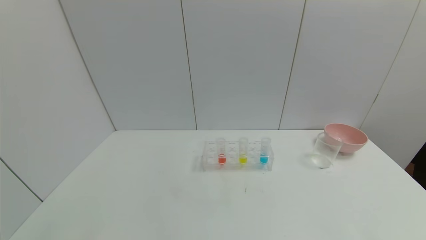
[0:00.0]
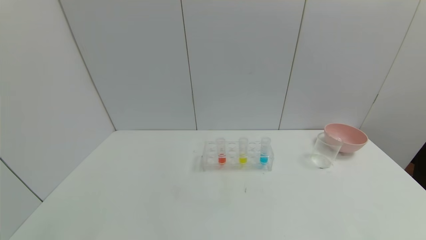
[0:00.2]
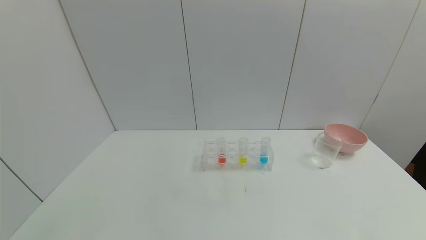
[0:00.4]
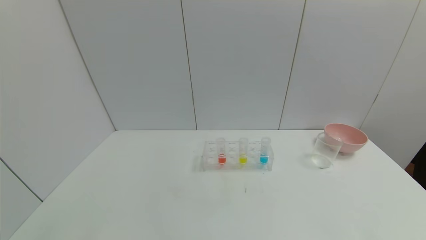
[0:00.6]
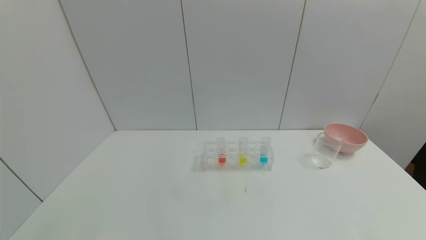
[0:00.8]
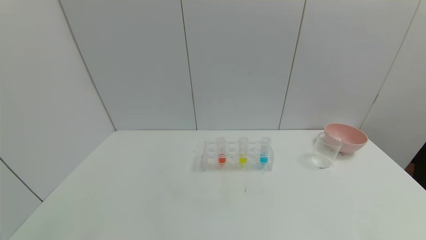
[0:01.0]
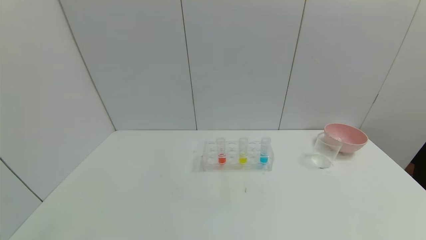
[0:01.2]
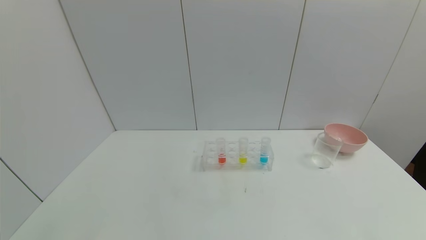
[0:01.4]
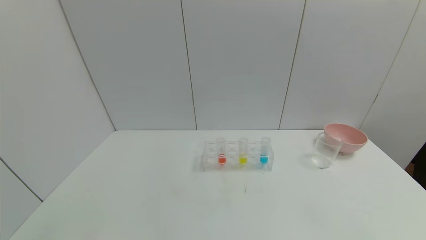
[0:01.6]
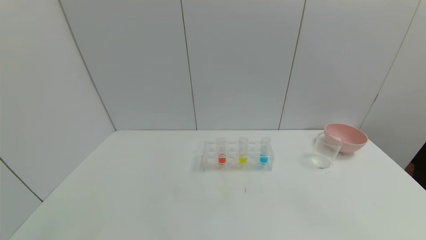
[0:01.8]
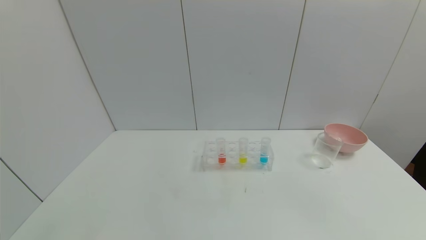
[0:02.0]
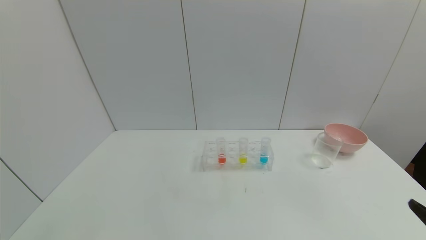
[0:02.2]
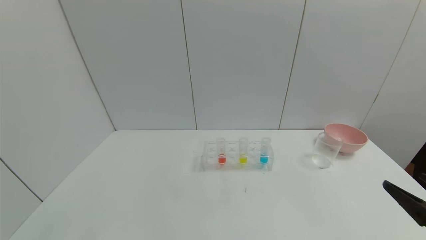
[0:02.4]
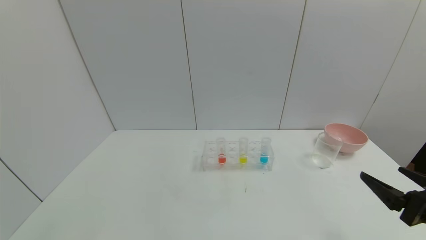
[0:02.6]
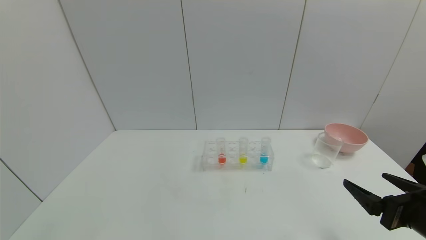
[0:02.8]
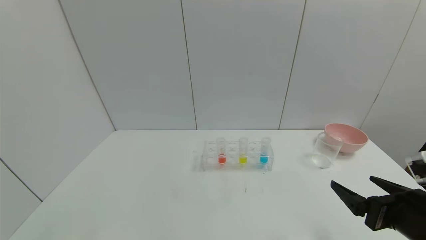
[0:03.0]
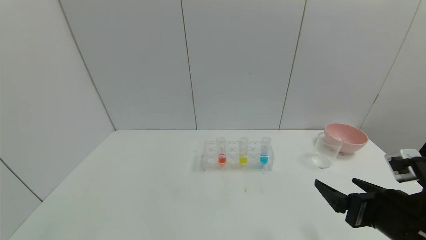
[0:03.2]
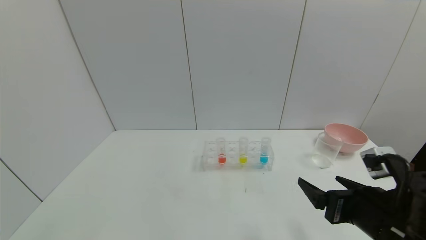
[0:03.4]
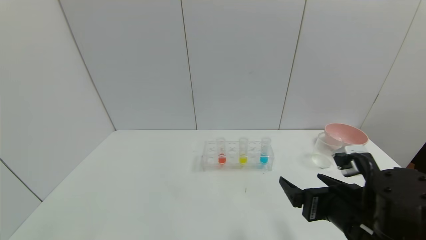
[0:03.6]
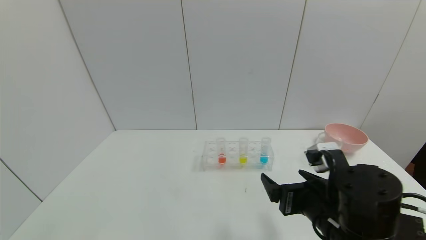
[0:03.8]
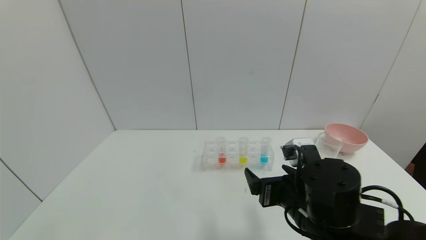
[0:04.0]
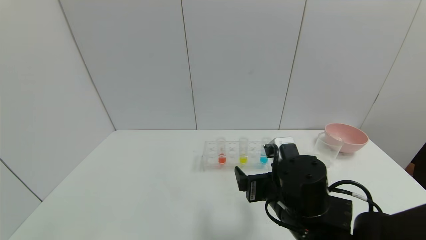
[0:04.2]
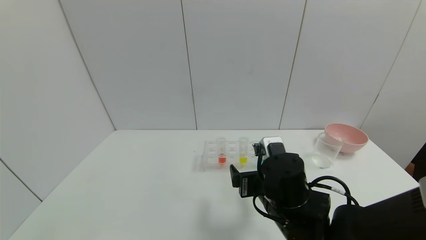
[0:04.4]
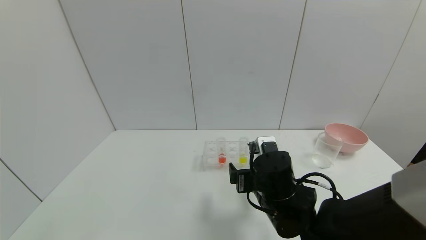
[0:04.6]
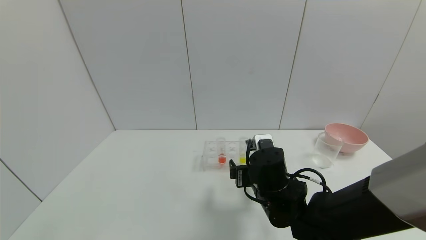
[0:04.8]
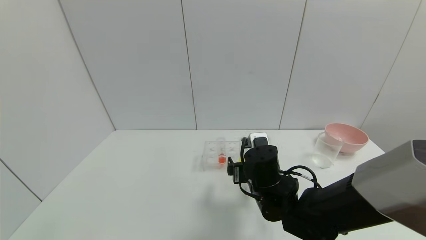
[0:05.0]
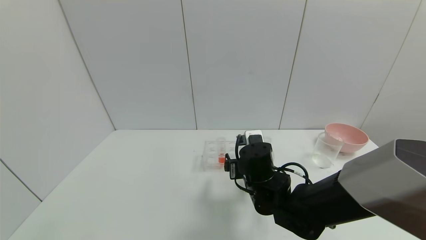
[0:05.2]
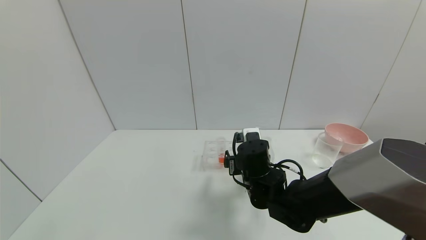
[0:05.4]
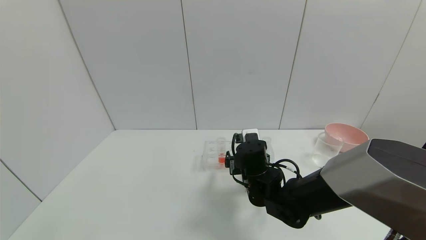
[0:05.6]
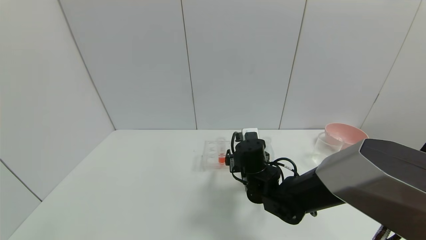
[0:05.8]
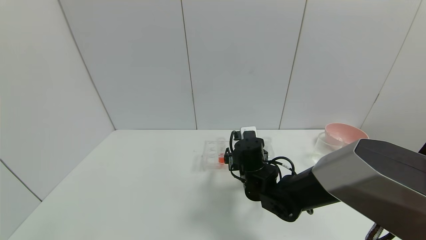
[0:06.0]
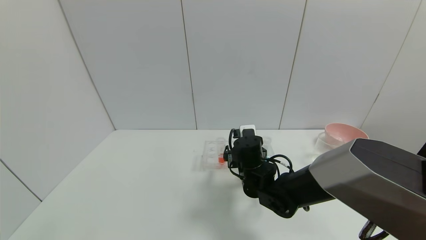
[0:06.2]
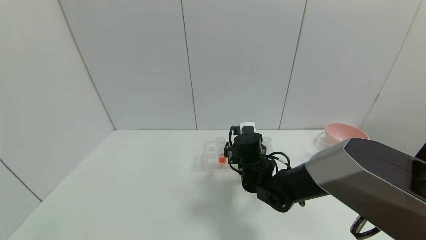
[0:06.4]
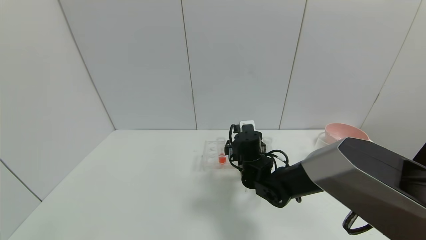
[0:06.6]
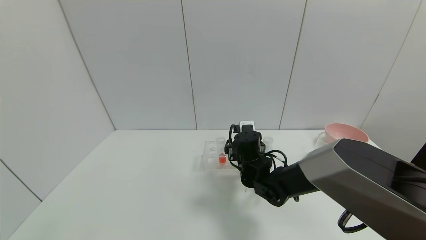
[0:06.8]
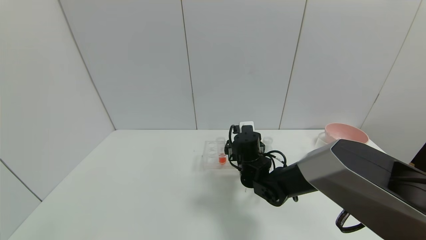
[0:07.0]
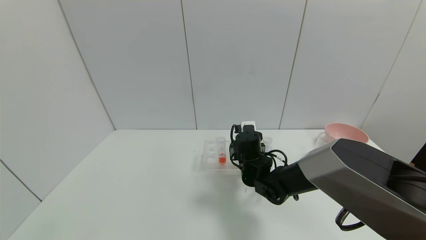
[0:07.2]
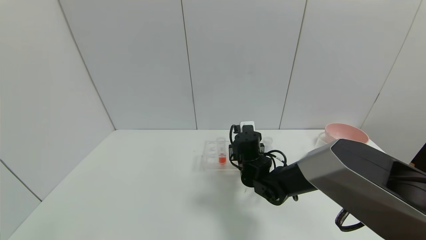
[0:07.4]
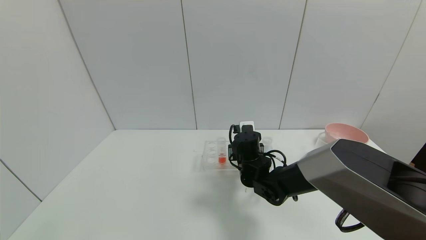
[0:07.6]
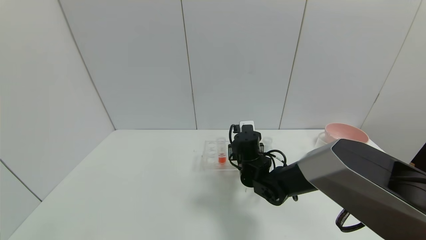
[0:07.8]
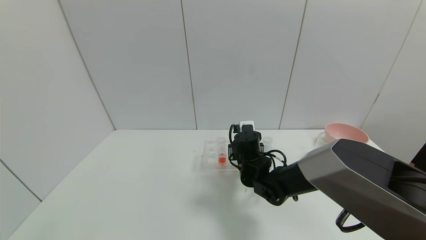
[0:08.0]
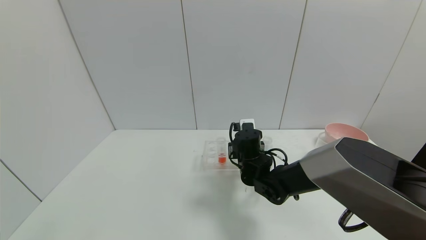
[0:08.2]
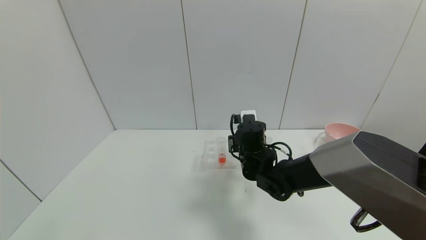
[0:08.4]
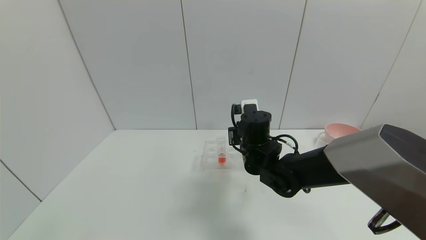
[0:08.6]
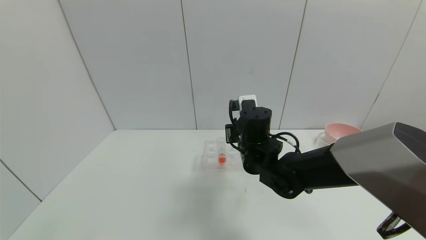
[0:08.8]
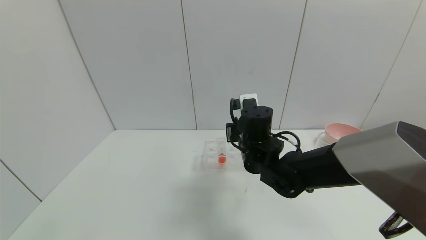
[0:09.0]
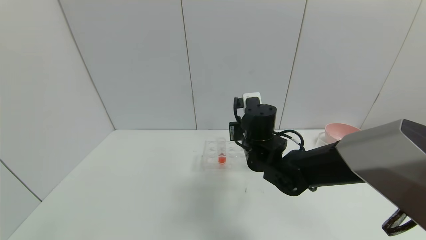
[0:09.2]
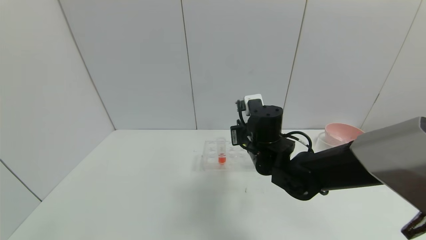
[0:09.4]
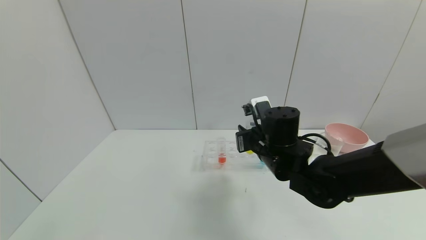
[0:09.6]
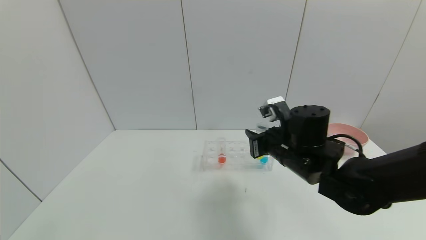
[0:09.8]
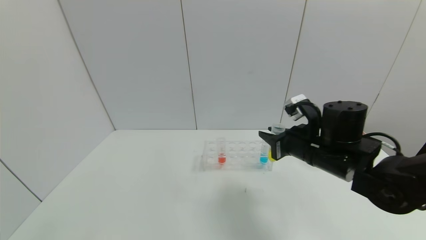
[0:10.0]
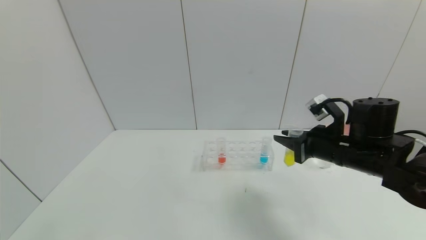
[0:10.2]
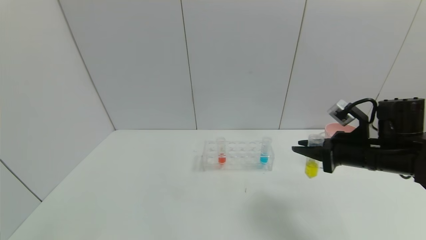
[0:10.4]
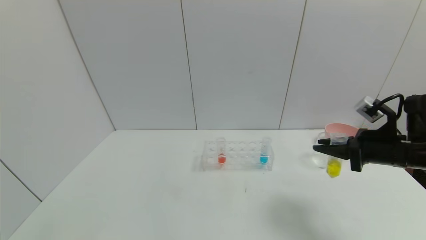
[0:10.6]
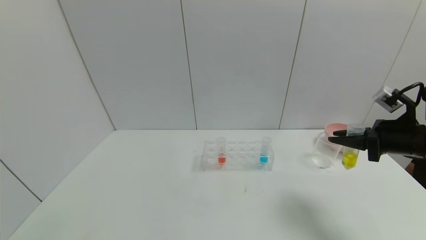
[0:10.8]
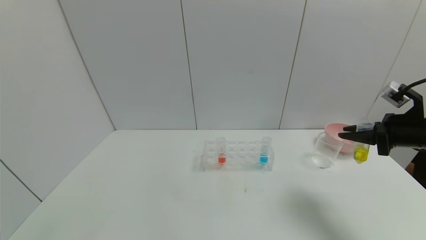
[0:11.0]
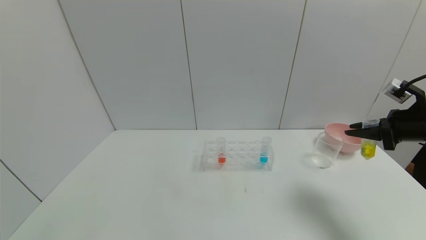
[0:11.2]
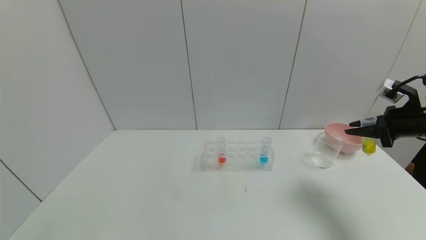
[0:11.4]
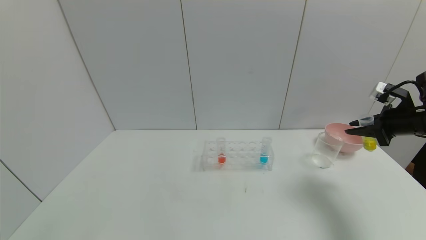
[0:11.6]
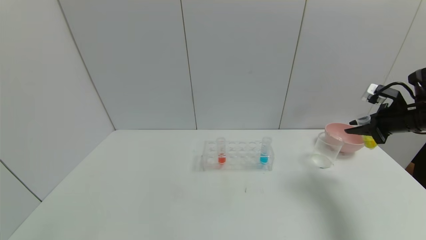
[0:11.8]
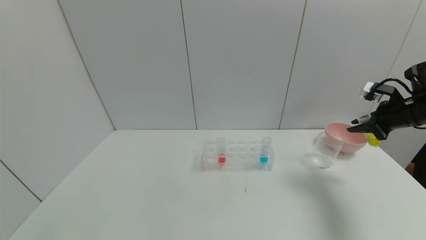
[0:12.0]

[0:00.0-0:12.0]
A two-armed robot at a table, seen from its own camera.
Task of the whole recording: pick up the test tube with yellow pigment and the test tube with blue pigment by grippers and pour them into the beaker.
Step, 0:00.0 to 0:07.6: Grasp the yellow reagent with the right gripper.
0:01.6 to 0:03.0: The right gripper moves forward and to the left, roughly 20 cm.
0:03.0 to 0:04.4: The right gripper travels to the left and forward by roughly 20 cm.
0:04.4 to 0:06.0: The right gripper shifts some 10 cm forward.
0:06.0 to 0:07.6: The right gripper closes.
0:07.6 to 0:09.0: The right gripper travels upward by roughly 10 cm.
0:09.0 to 0:10.4: The right gripper is displaced to the right by some 20 cm.
0:10.4 to 0:12.0: The right gripper travels to the right and forward by some 15 cm.

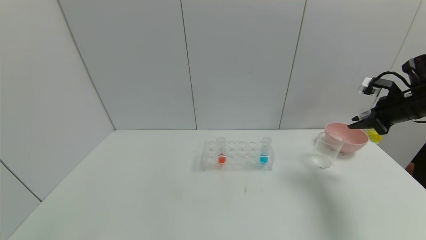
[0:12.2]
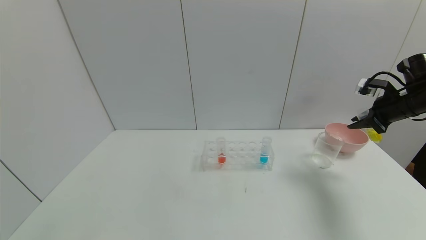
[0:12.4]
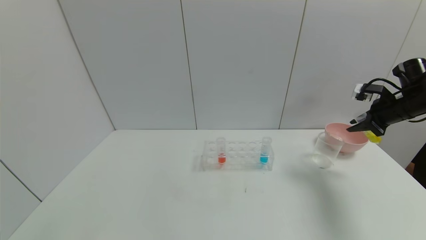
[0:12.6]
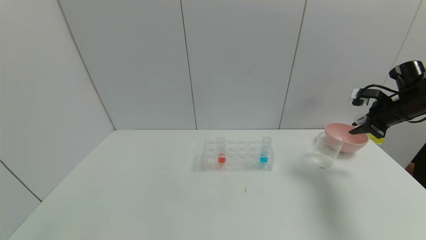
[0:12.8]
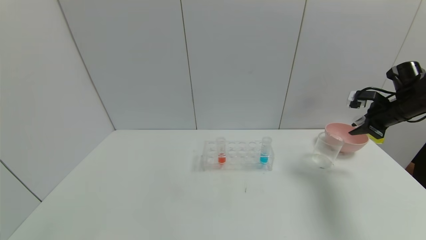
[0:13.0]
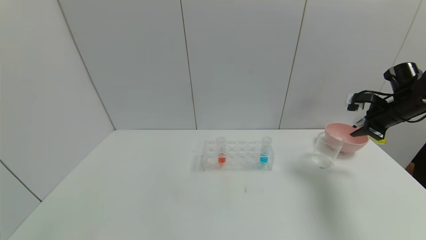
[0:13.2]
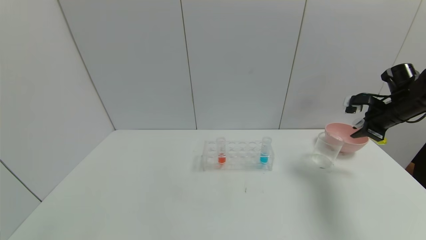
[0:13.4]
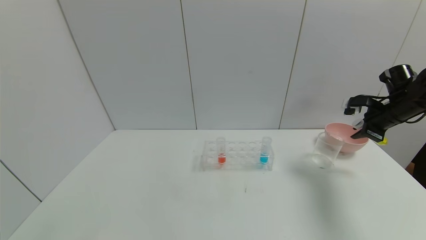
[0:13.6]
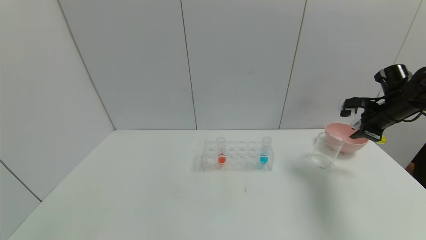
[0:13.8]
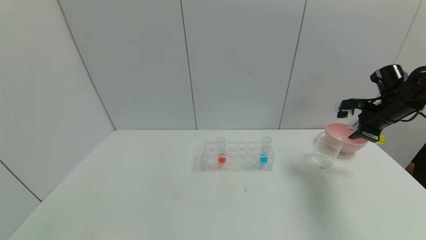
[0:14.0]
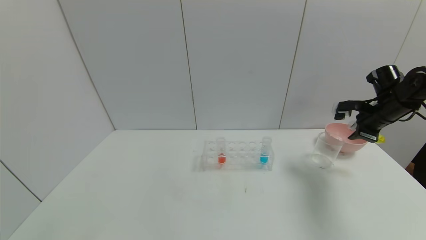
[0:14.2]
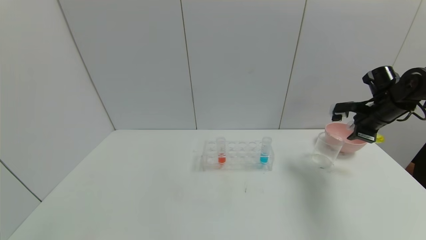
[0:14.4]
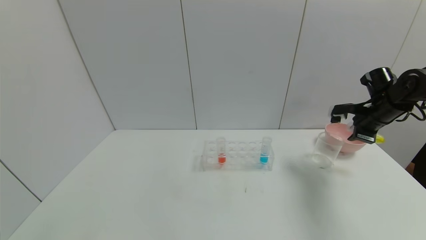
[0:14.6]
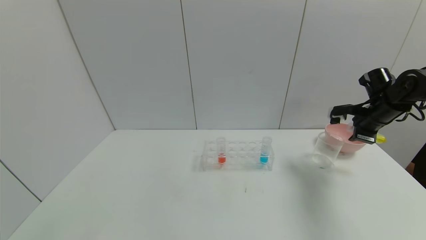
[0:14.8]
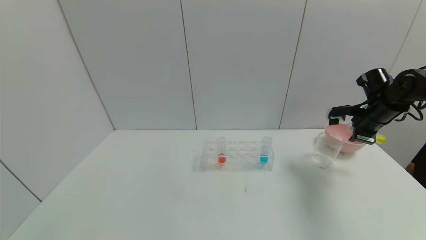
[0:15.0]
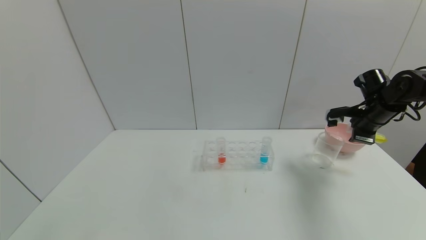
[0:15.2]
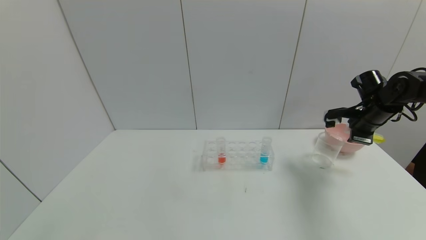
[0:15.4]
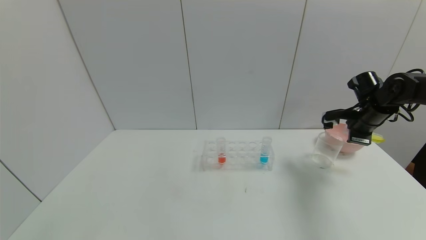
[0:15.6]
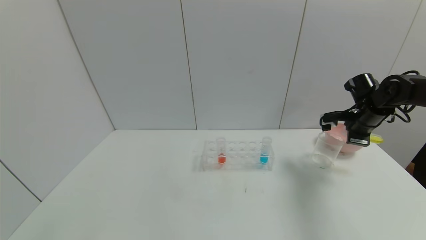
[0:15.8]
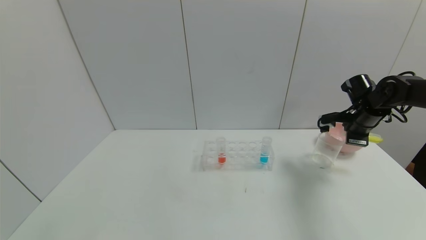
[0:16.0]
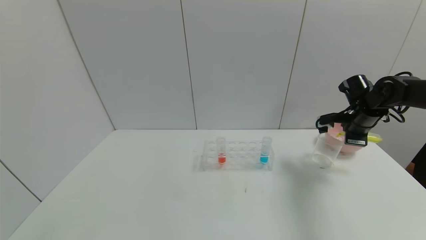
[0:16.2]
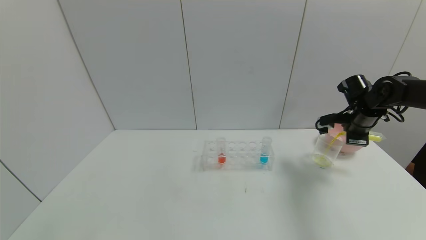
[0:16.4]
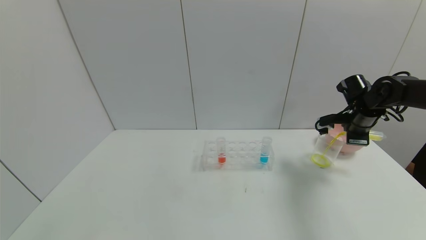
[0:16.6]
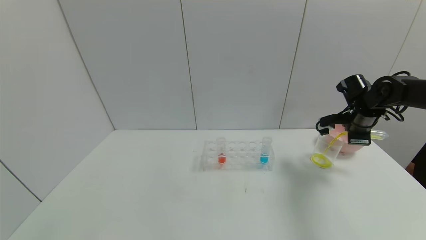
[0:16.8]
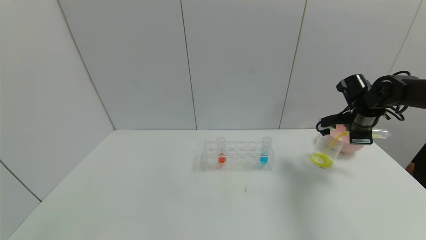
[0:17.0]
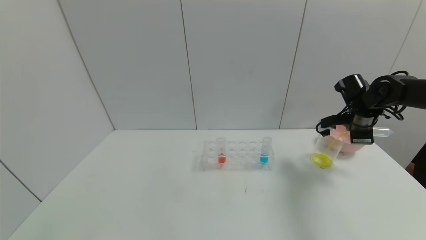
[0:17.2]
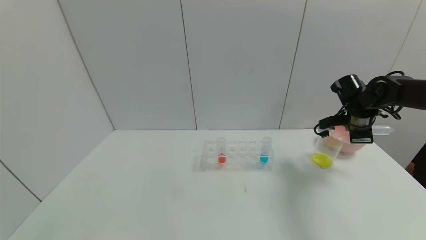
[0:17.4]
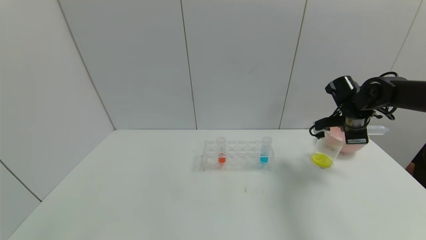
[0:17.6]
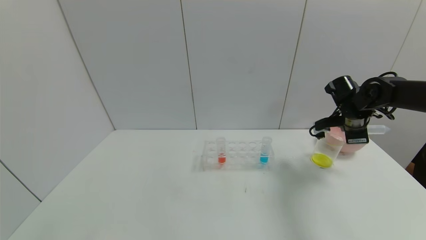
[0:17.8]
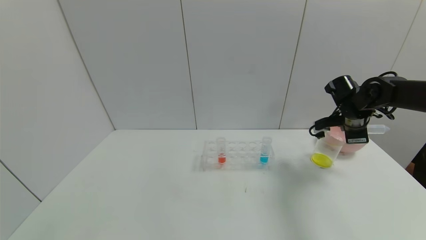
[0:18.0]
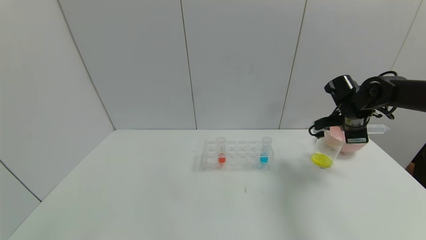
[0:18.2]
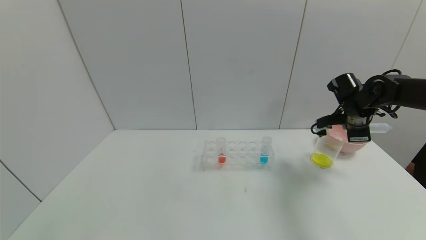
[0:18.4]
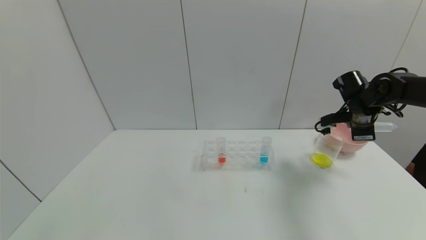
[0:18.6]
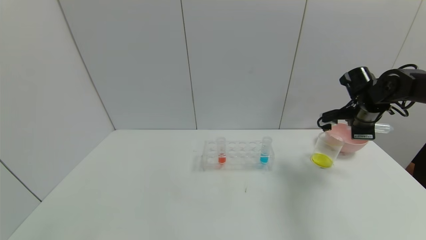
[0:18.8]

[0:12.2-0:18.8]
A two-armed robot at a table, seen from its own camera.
Task of the whole recording: pick up the test tube with yellow pigment and the test tube with blue pigment by grippers and pour them into the beaker.
Step, 0:12.2 to 0:17.4: Pour the yellow reagent into the graduated cylinder with the right gripper.
0:13.8 to 0:15.4: There are only small adjustments of the grippers.
0:17.2 to 0:18.8: There are only small adjustments of the grippers.
